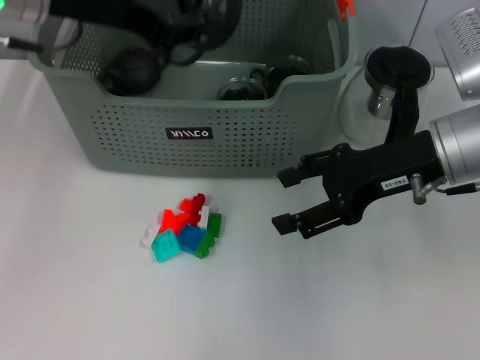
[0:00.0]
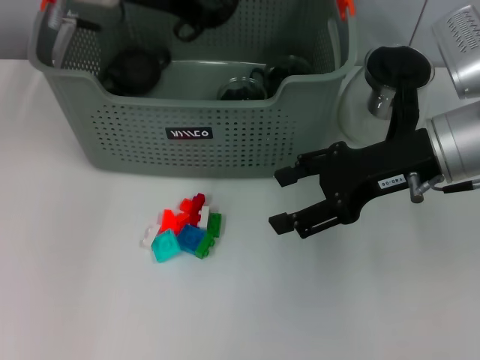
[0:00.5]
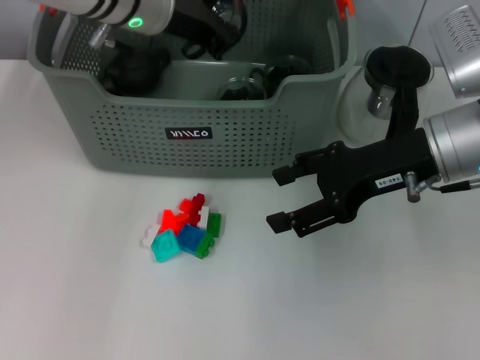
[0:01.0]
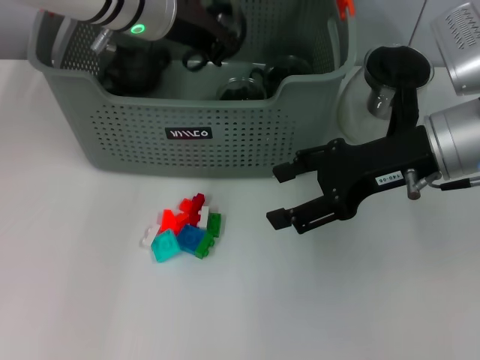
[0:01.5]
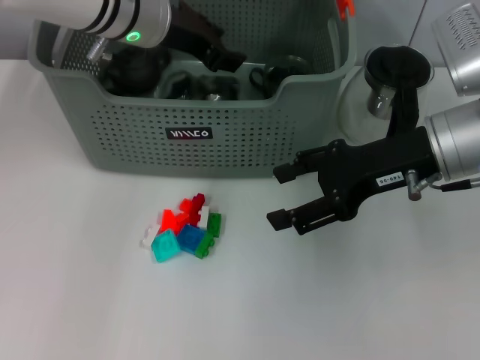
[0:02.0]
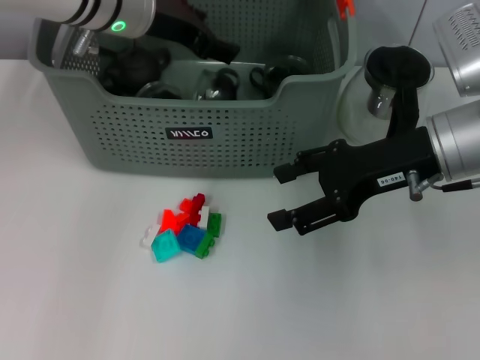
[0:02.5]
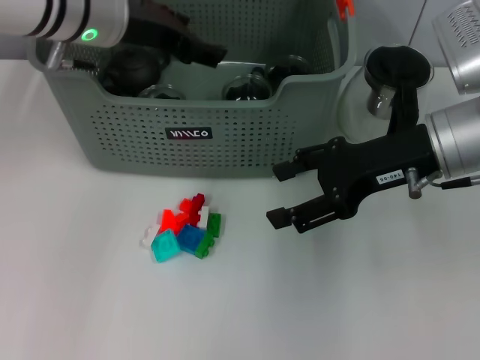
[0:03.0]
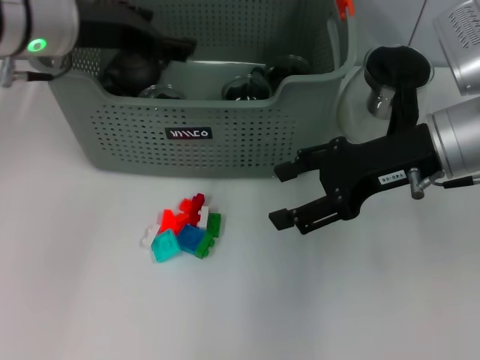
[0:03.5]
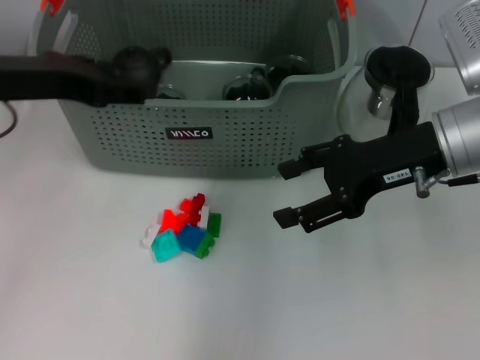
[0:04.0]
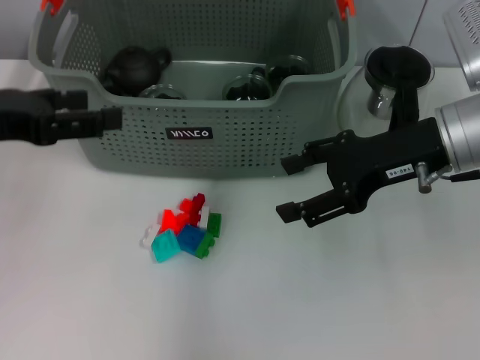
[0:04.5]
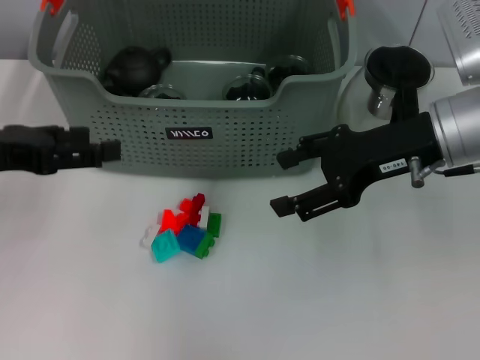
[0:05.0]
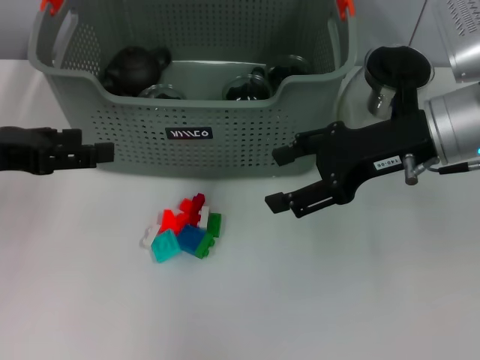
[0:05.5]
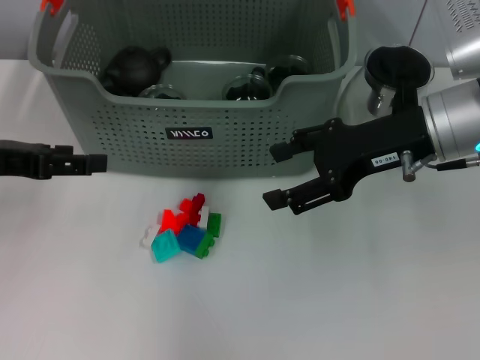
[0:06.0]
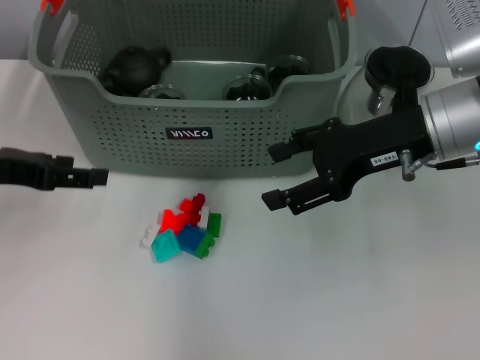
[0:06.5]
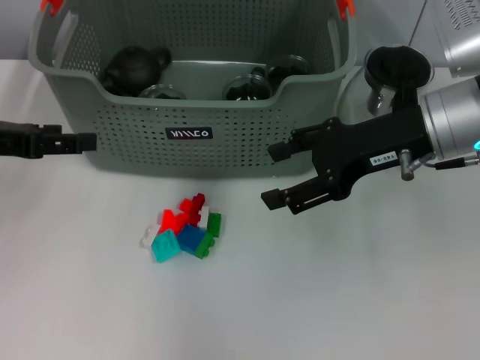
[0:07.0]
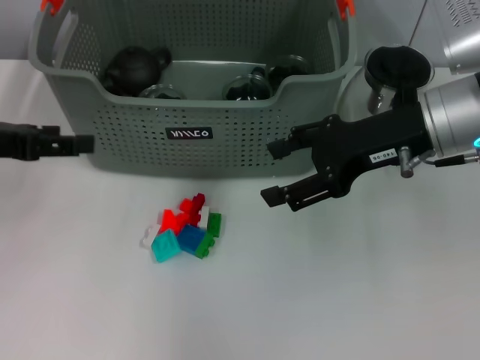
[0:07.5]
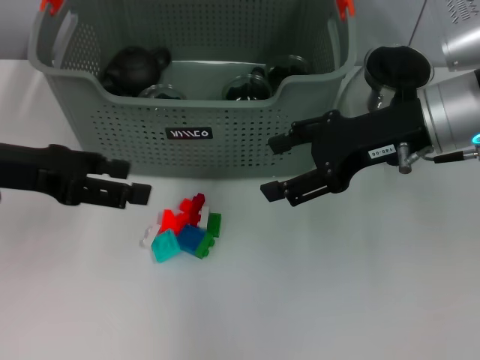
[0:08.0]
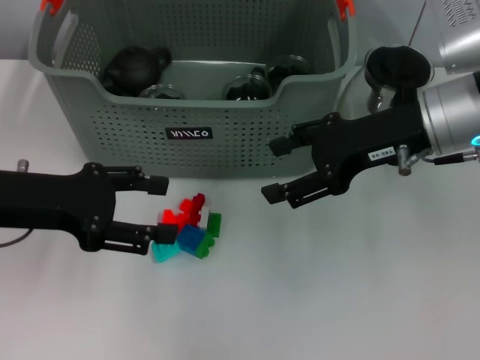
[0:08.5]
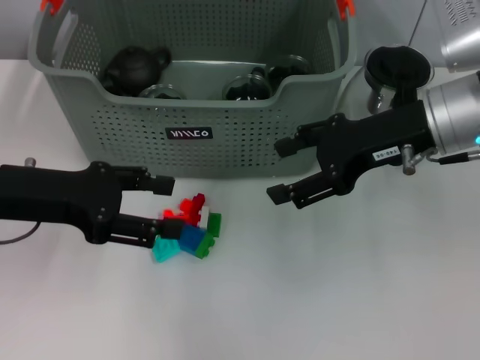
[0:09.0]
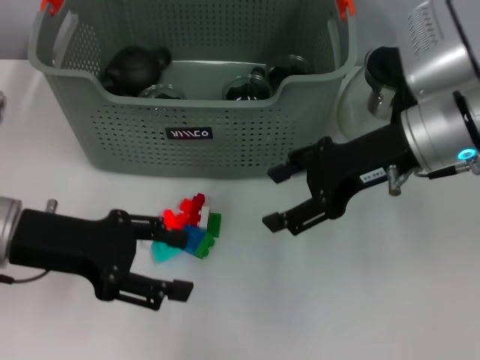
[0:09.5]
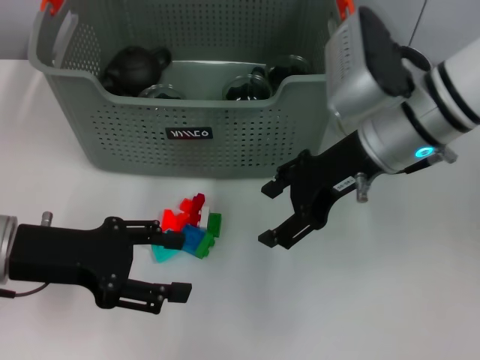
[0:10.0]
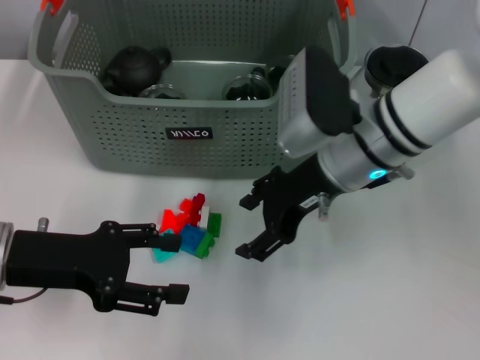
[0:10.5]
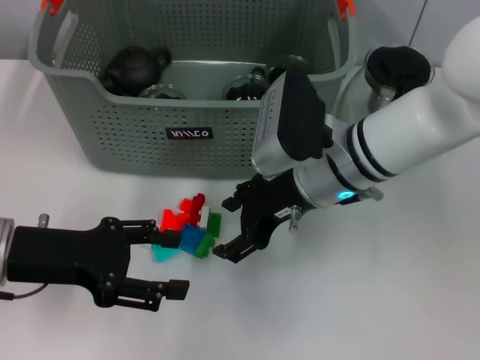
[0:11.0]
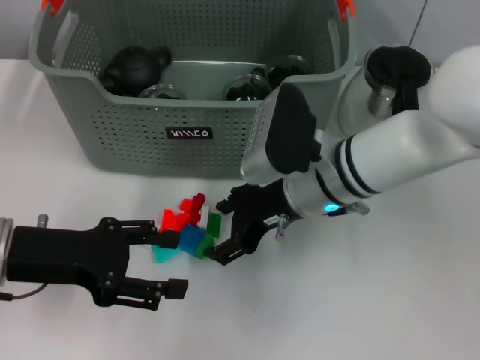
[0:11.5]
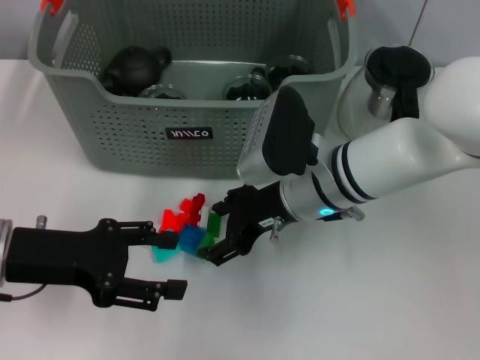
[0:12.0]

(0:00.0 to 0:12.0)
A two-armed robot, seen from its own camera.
Task of the whole recording: pick up the teacup on the table and place it into the storage bin, pick up the block on the table and place it into the storage bin.
Step, 0:00.0 - 0:02.5: Place the cup in the storage box with left gripper.
0:00.0 - 0:02.0: The left gripper heads downward, forward and to the right, covering approximately 15 cm.
0:02.0 - 0:04.0: The left gripper shifts about 15 cm backward and to the left, and opens its fingers.
0:04.0 - 0:06.0: The left gripper goes some 10 cm to the left and downward.
0:08.0 - 0:10.0: The left gripper moves downward, about 5 cm; the right gripper moves about 5 cm.
0:10.0 - 0:12.0: The right gripper moves downward and to the left, roughly 10 cm.

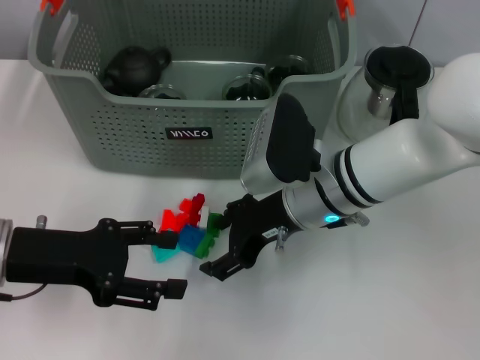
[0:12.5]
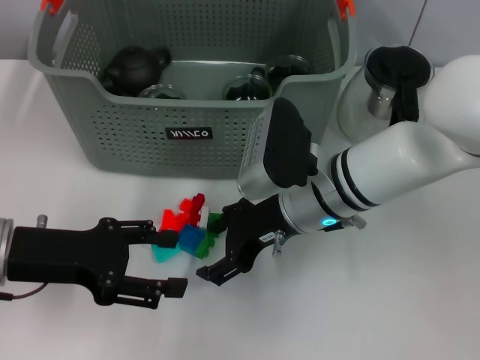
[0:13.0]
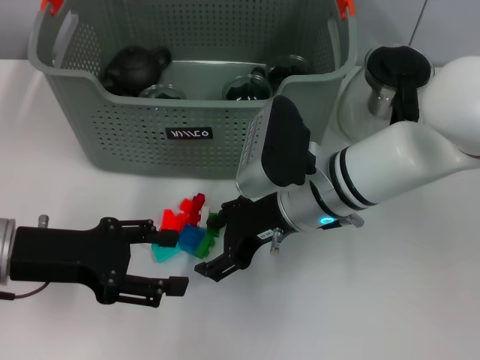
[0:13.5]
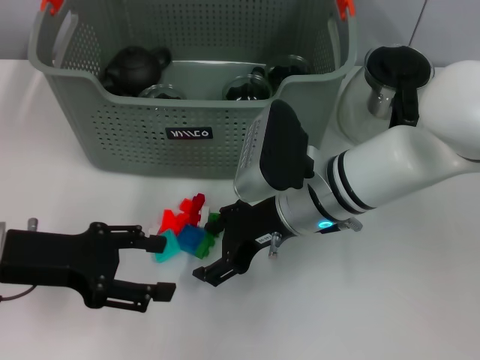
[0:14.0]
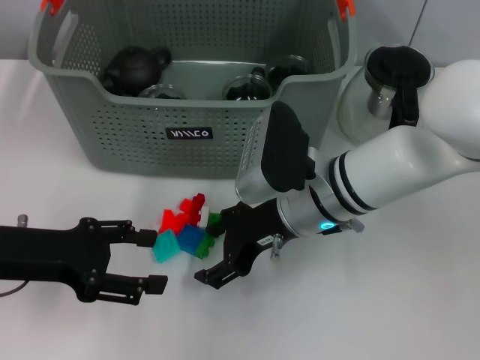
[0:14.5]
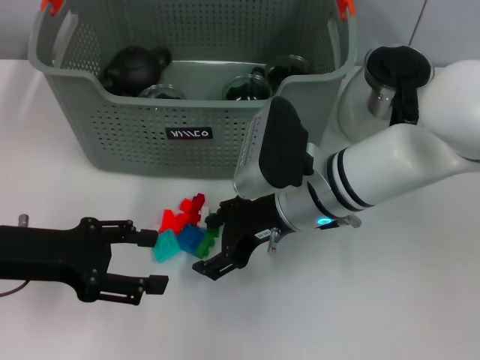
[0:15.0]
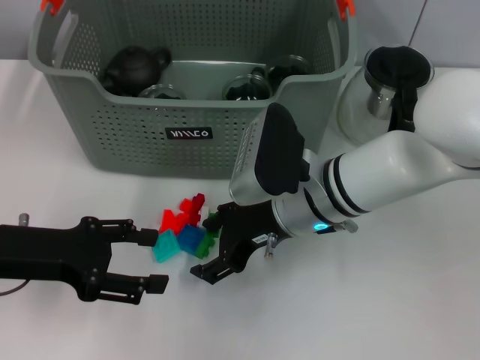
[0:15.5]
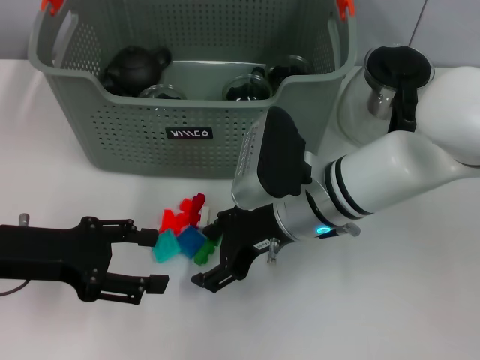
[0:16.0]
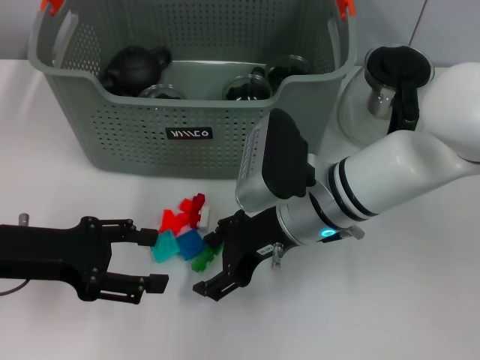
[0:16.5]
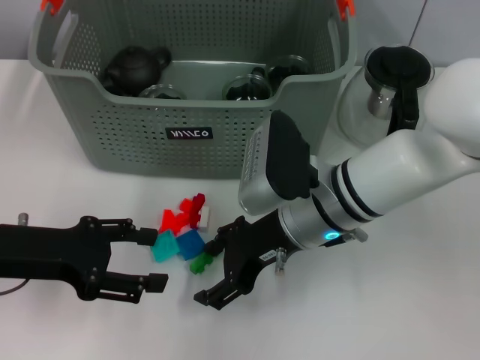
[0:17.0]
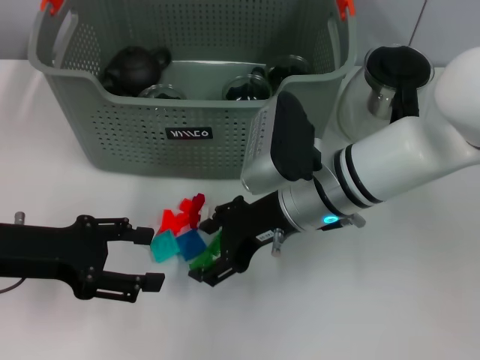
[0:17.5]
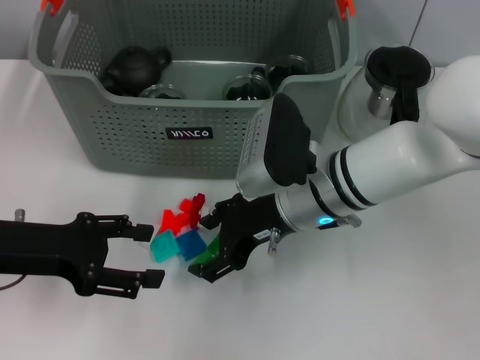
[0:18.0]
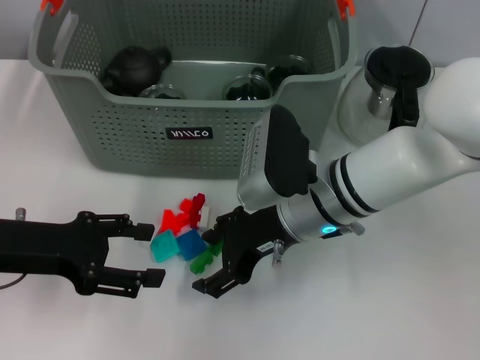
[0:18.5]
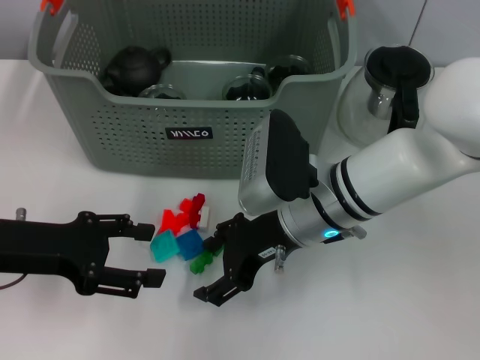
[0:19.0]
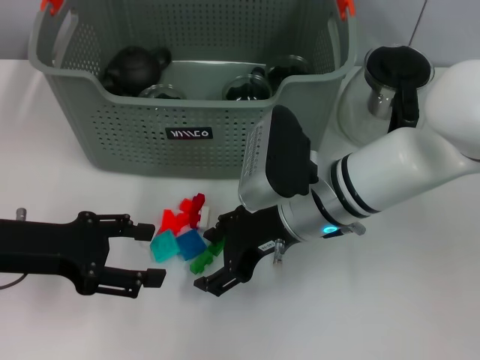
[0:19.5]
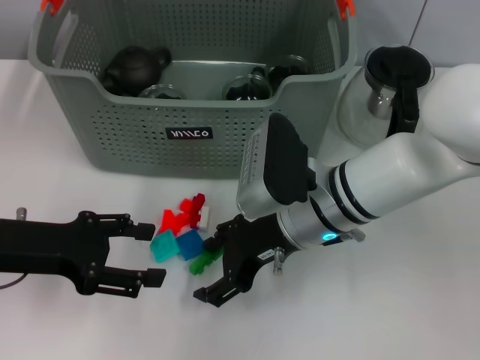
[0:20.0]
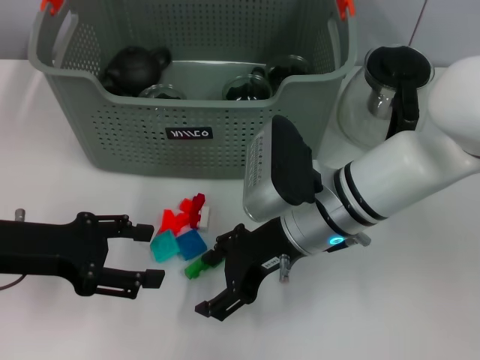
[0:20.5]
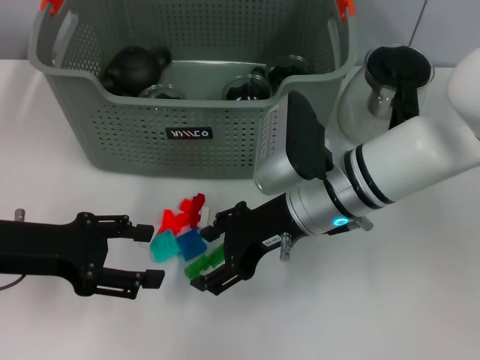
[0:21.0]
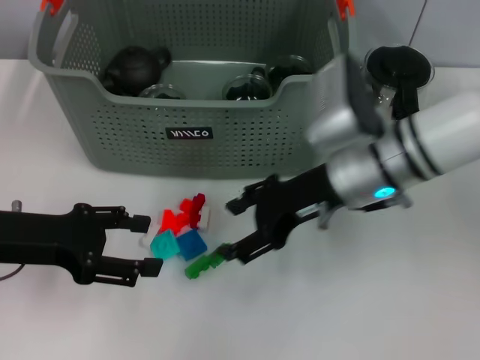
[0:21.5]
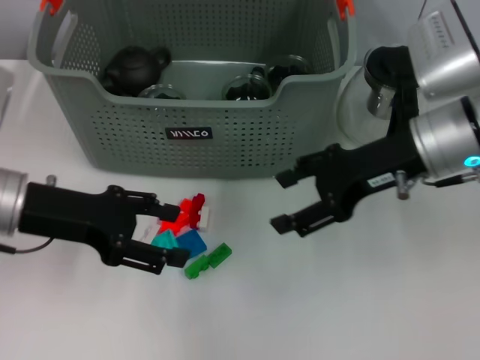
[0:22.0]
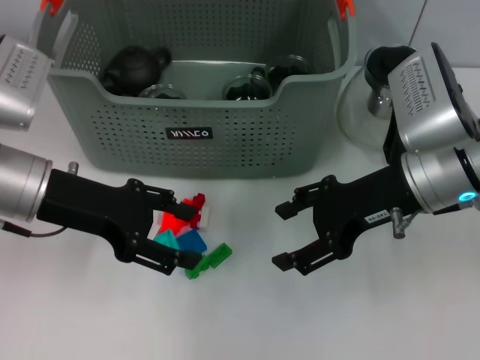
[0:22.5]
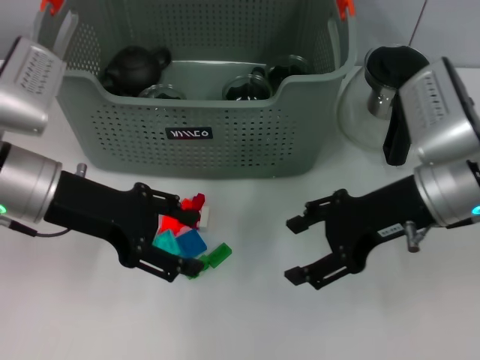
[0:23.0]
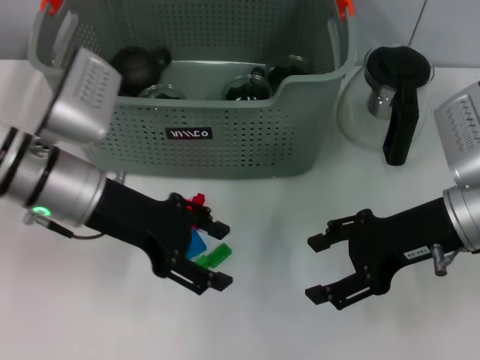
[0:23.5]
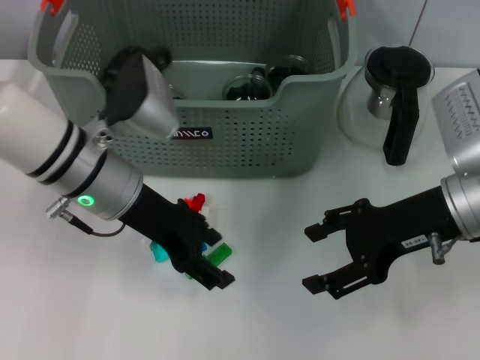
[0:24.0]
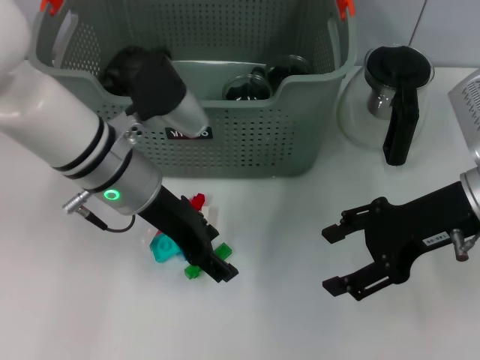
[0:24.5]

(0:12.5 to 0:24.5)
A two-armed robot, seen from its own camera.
Task of the whole recording: pick up the teacup on the table and place it into the storage bin, pick up the block on the table and place it into the storage bin.
0:12.5 - 0:14.5: The grippers make only small movements.
0:14.5 - 0:16.5: The two grippers keep their place.
0:16.5 - 0:18.5: Both grippers stay put.
0:18.5 - 0:20.5: Both grippers stay about where they are.
0:20.5 - 0:22.5: The left gripper heads forward, covering some 5 cm. Meanwhile the right gripper heads to the right and upward, covering approximately 10 cm.
0:22.5 - 0:24.5: The left gripper shifts roughly 10 cm to the right.

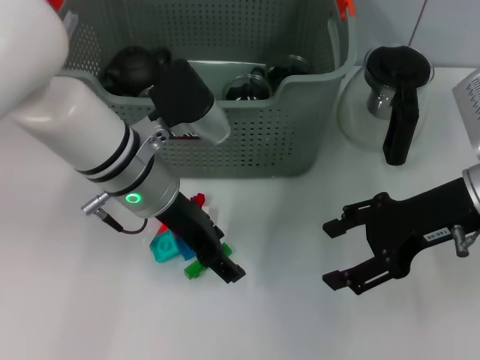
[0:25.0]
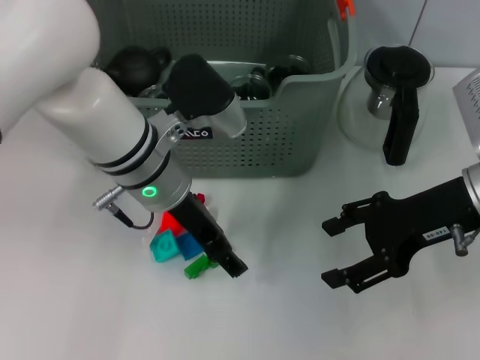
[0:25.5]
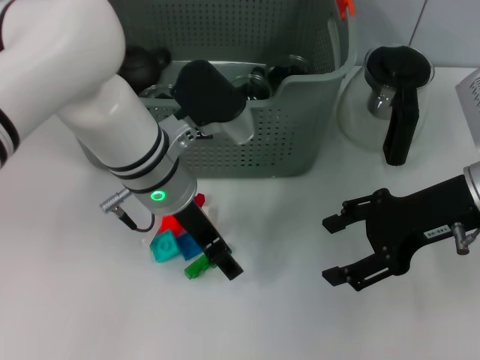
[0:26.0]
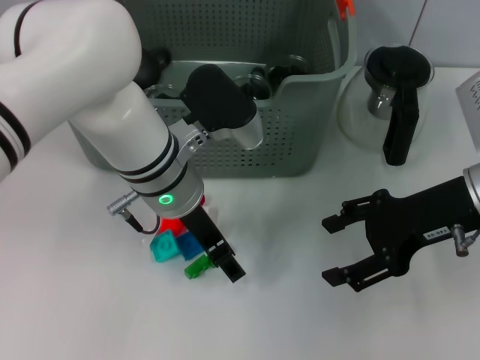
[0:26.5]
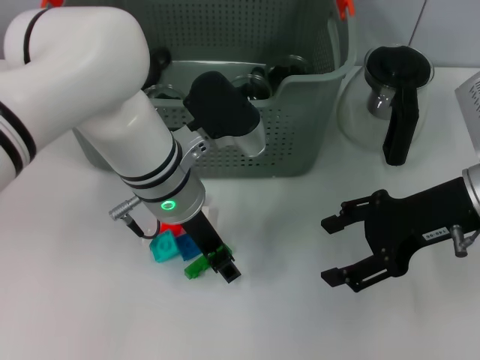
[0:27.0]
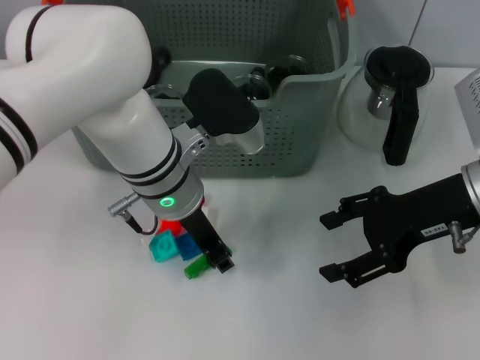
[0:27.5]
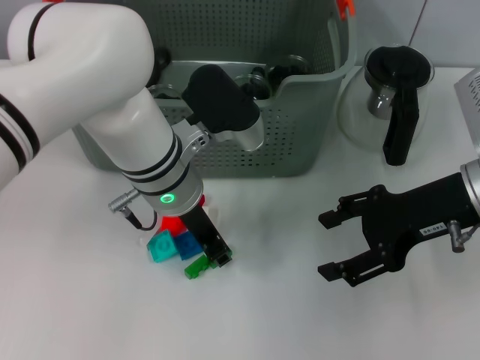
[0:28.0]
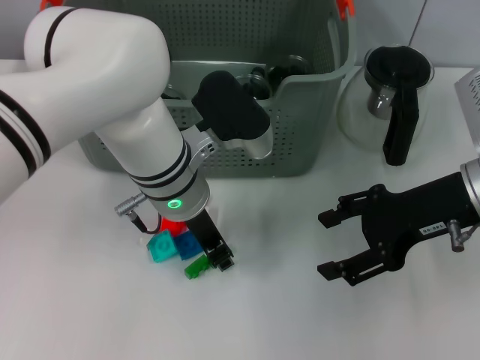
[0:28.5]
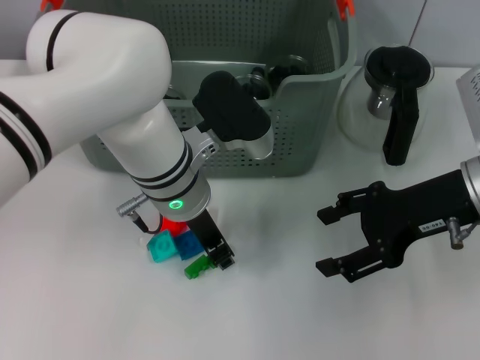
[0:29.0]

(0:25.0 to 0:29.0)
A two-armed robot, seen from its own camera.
Task of the whole recording: pick up the teacup on the table and place it into the storage bin, pick up the block on the table and place it into the storage bin.
0:25.0 - 0:27.0: The grippers make only small movements.
0:27.0 - 0:29.0: The left gripper closes up.
